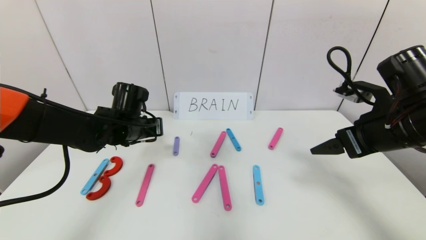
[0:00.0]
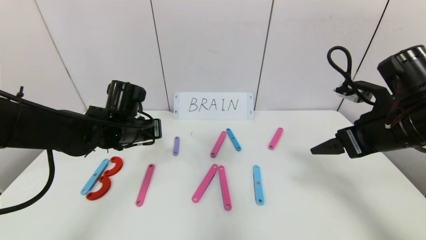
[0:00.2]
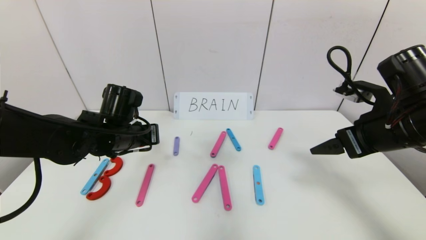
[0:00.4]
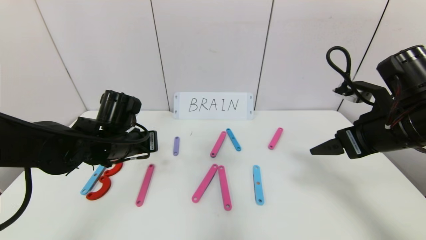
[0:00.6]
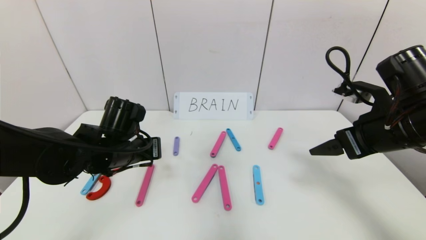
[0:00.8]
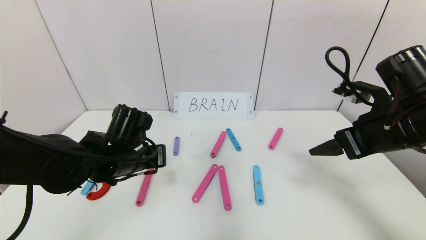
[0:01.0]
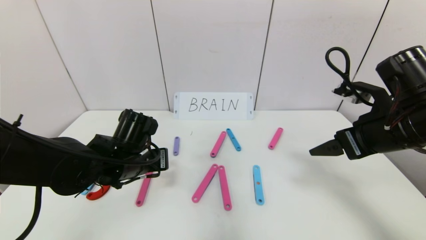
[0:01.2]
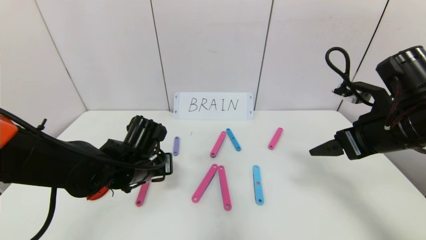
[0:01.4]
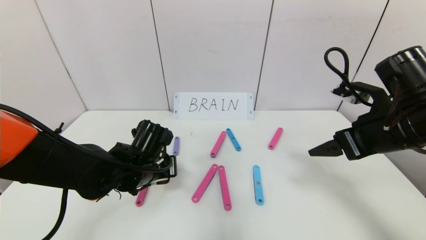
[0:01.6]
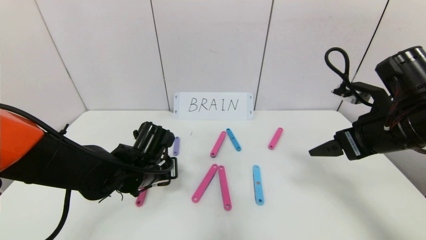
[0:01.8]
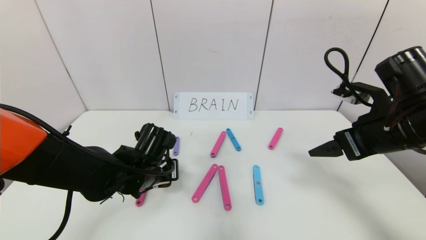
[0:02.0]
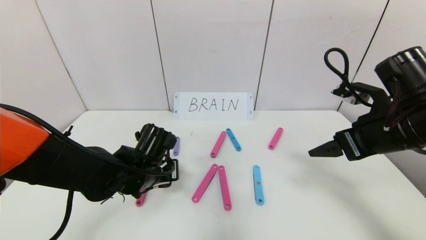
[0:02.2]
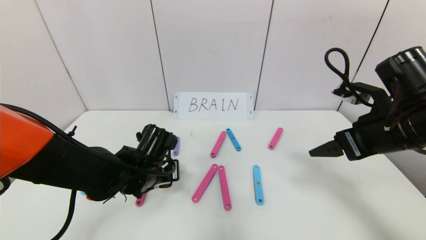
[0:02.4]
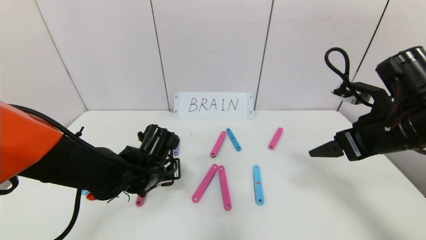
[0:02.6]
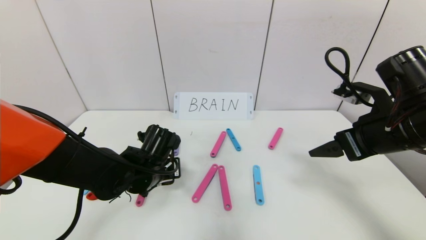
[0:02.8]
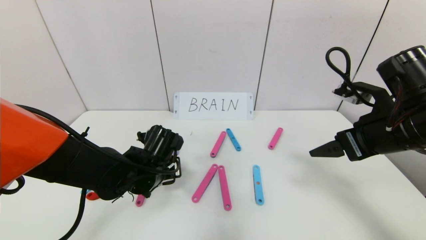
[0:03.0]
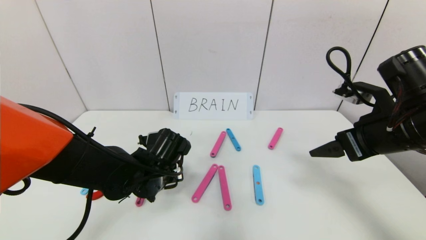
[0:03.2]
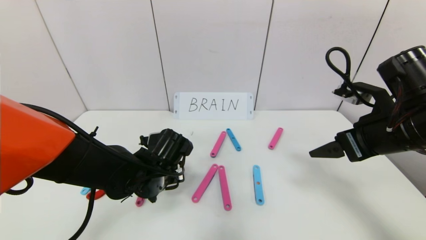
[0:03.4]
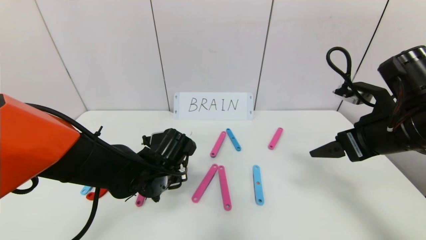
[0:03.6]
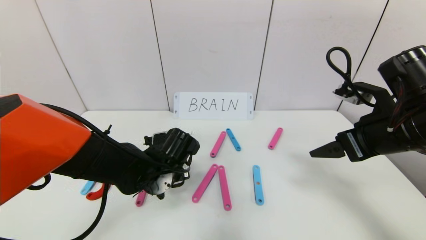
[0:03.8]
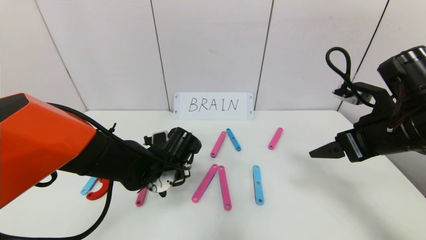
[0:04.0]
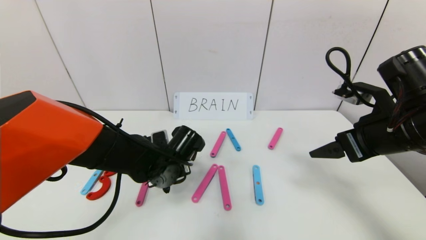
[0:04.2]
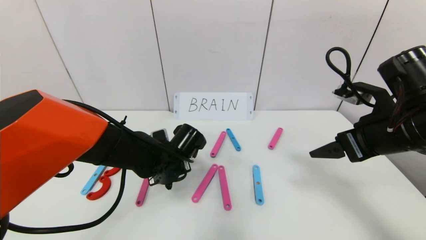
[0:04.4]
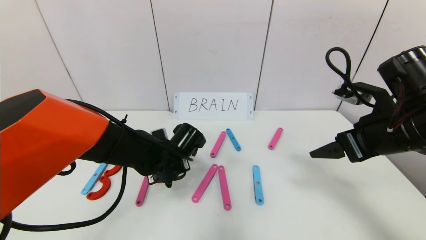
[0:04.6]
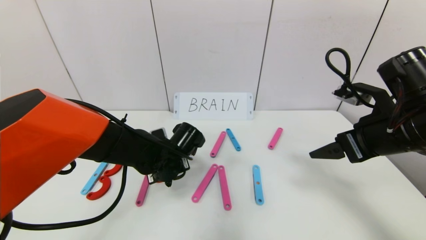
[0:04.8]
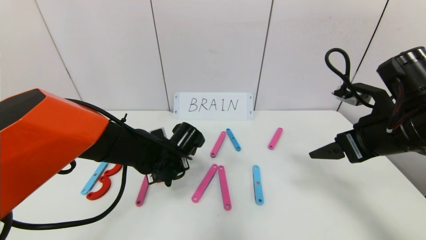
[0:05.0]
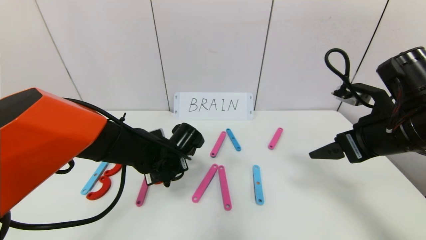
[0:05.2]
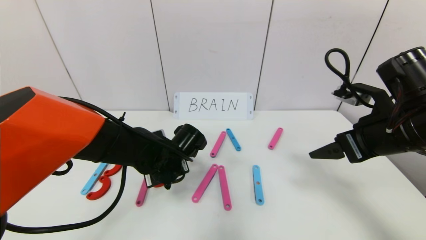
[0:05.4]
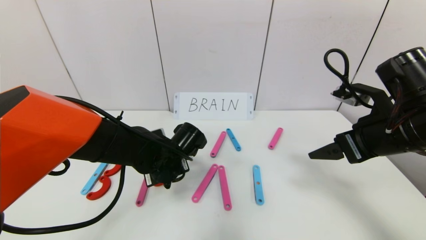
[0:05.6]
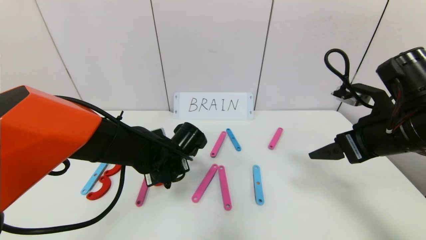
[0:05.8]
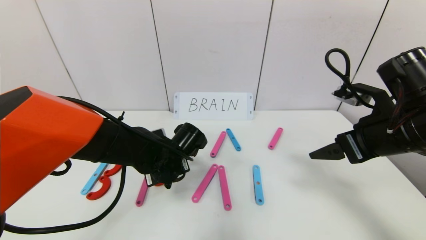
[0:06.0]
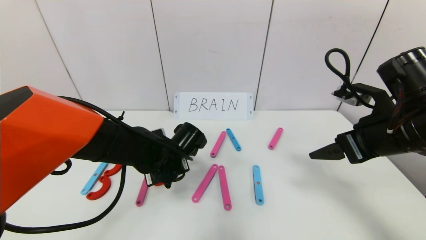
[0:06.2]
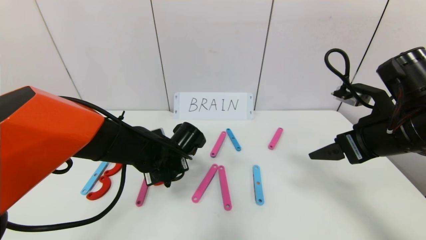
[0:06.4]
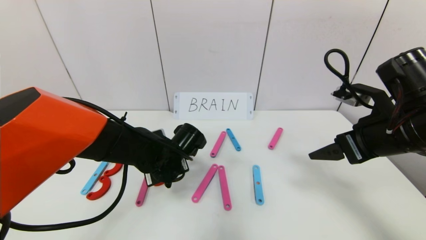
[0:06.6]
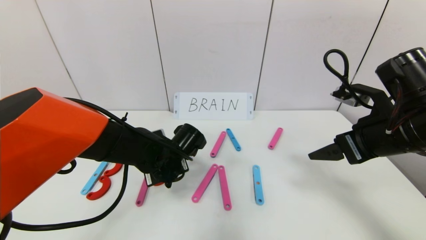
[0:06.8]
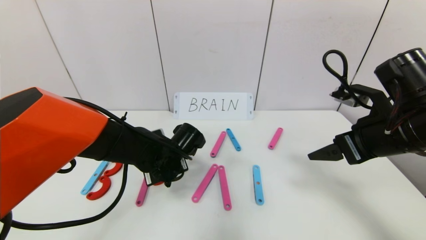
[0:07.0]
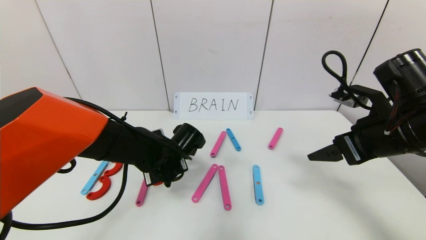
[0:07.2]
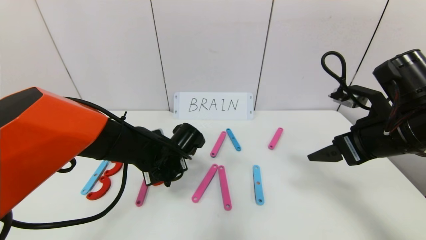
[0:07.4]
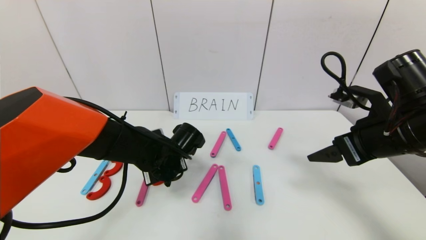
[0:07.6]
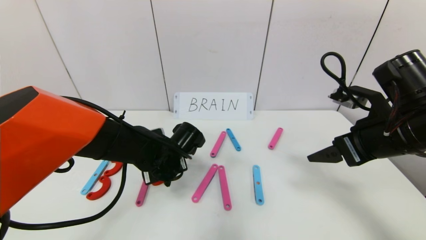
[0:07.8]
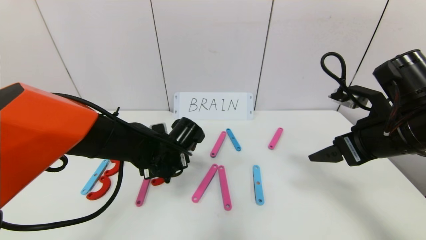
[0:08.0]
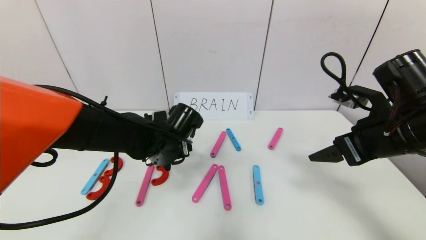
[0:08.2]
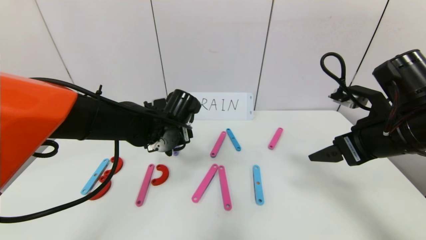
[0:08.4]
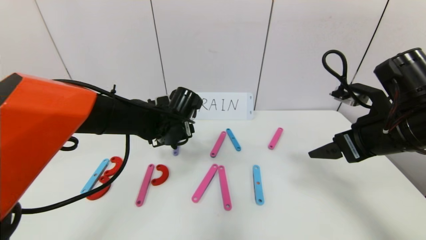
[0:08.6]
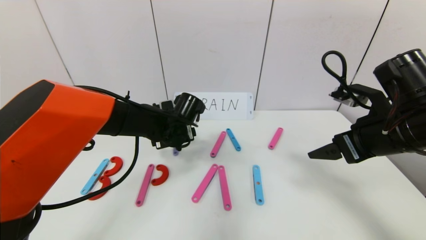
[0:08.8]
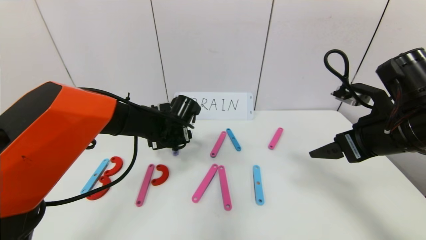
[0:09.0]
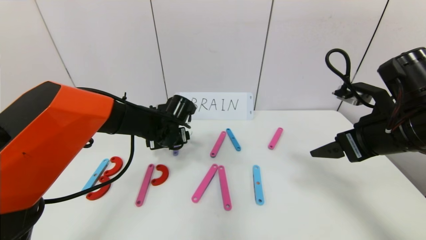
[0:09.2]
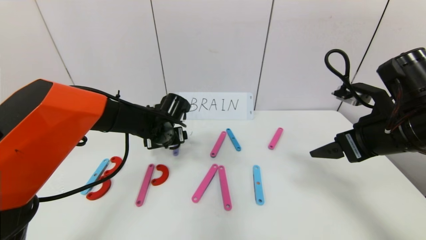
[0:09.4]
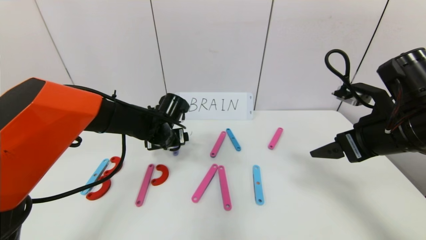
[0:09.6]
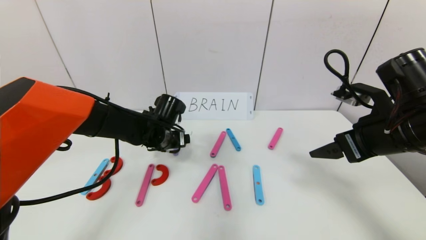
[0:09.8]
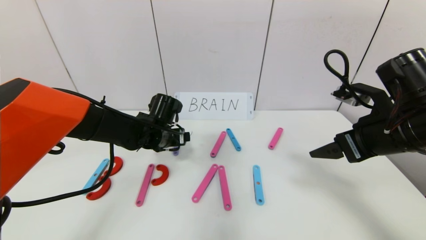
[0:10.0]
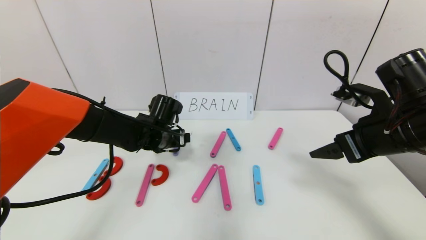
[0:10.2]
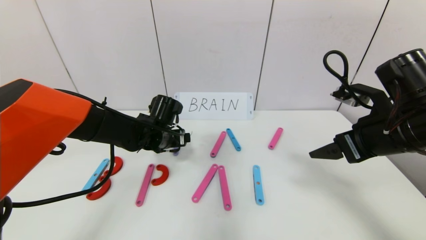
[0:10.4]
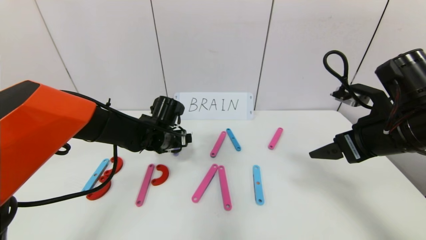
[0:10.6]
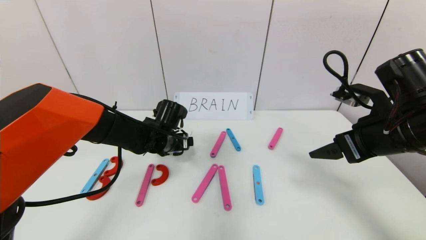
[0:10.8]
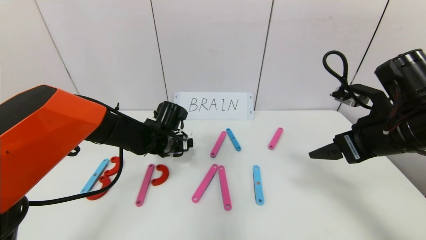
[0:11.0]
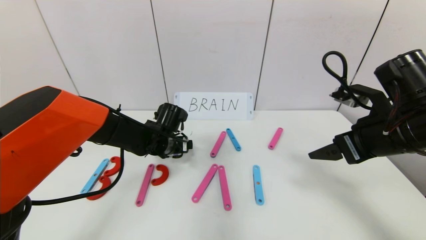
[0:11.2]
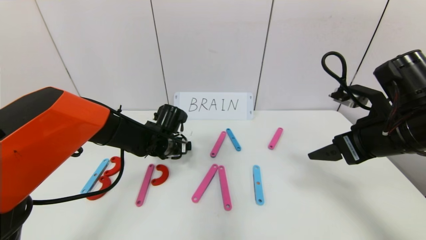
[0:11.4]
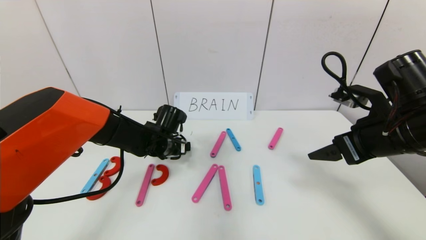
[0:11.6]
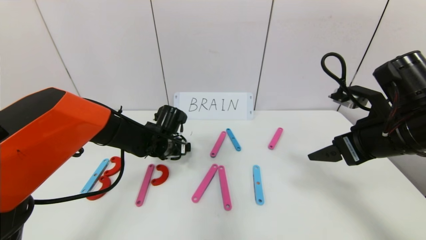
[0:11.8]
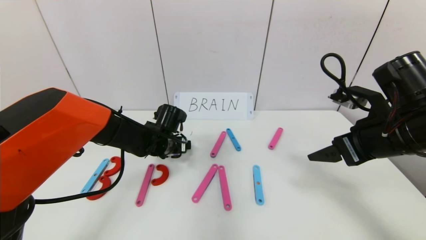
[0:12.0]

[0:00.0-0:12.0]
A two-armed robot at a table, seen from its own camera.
Task of the whole recording: rearrange the word baai as brain.
0:00.0 to 0:01.6: The left gripper travels backward by some 5 cm.
0:01.6 to 0:03.0: There are only small adjustments of the grippers.
0:03.0 to 0:04.4: The grippers make only small movements.
0:04.4 to 0:06.0: Neither gripper changes place.
0:06.0 to 0:07.6: The left gripper opens.
0:07.6 to 0:09.0: The left gripper heads forward, covering roughly 10 cm, and opens.
0:09.0 to 0:12.0: The grippers move only a little.

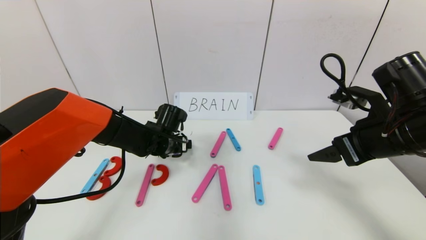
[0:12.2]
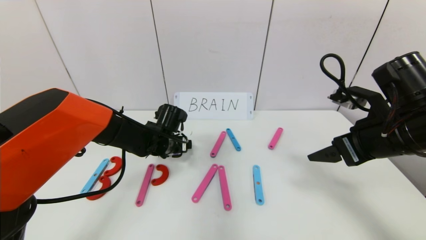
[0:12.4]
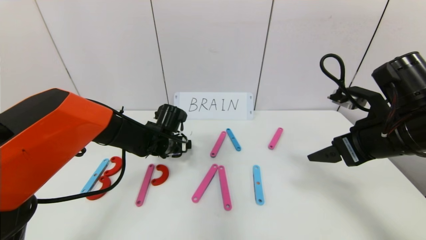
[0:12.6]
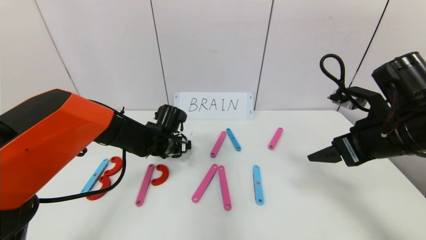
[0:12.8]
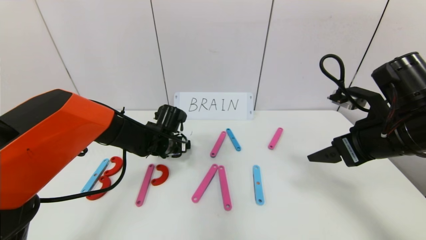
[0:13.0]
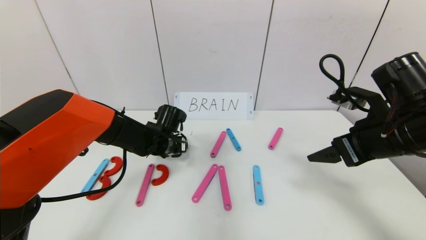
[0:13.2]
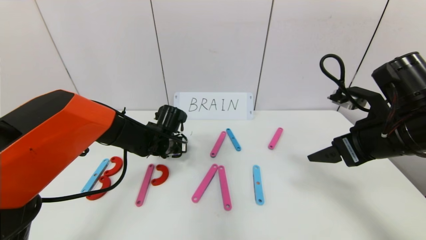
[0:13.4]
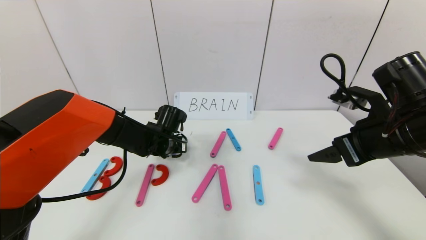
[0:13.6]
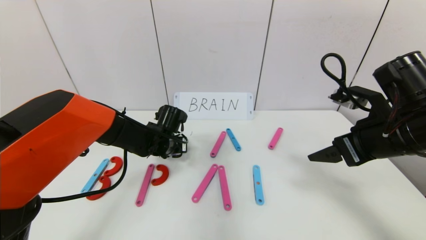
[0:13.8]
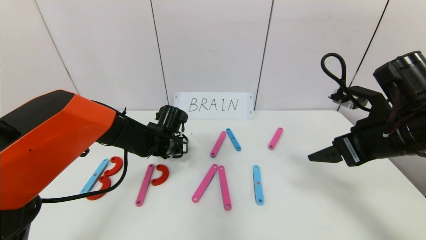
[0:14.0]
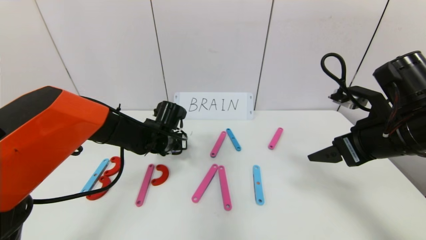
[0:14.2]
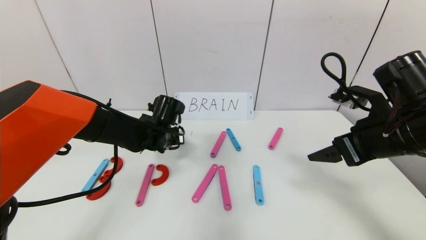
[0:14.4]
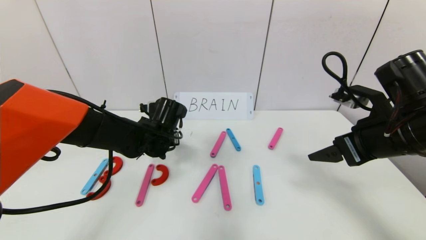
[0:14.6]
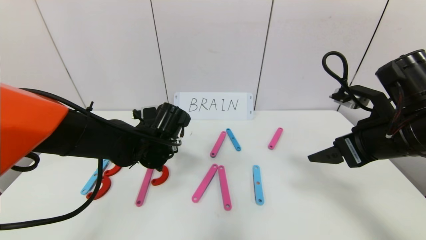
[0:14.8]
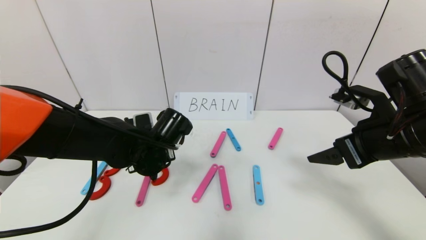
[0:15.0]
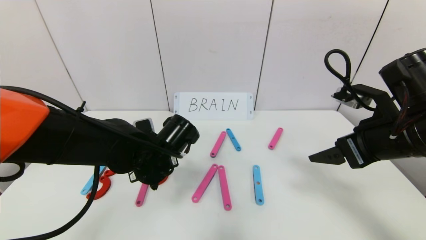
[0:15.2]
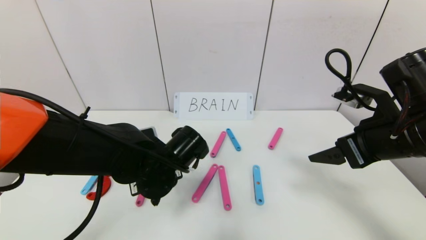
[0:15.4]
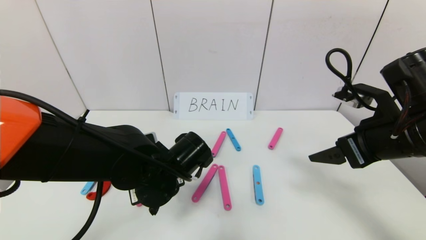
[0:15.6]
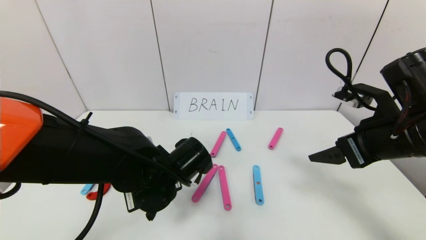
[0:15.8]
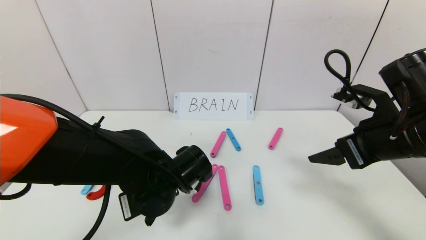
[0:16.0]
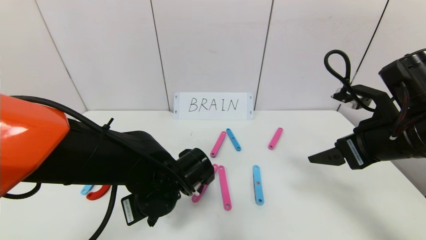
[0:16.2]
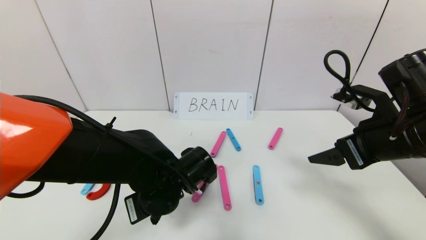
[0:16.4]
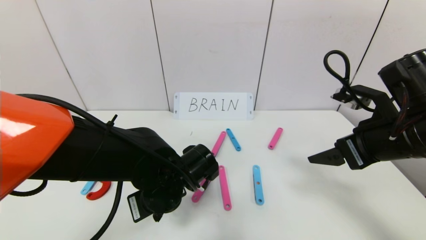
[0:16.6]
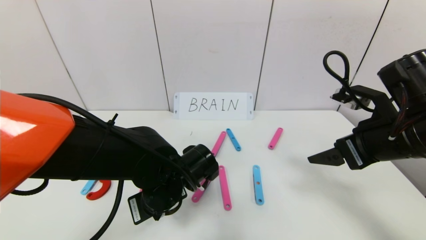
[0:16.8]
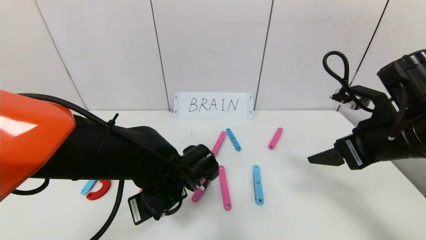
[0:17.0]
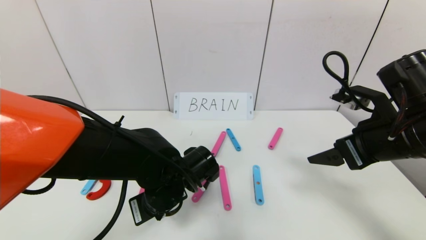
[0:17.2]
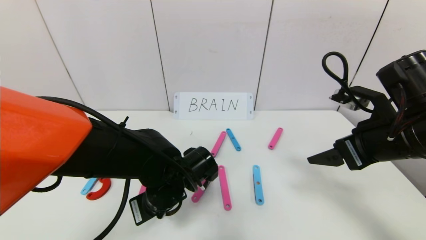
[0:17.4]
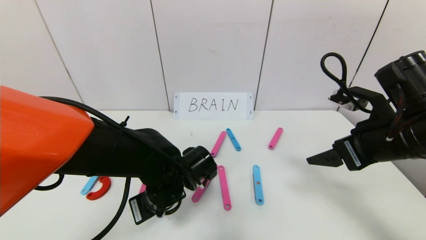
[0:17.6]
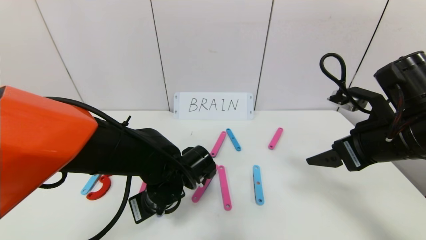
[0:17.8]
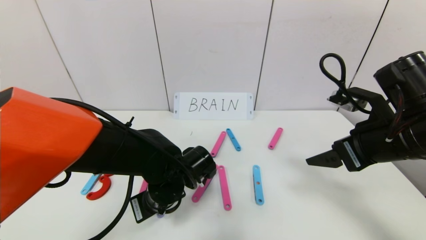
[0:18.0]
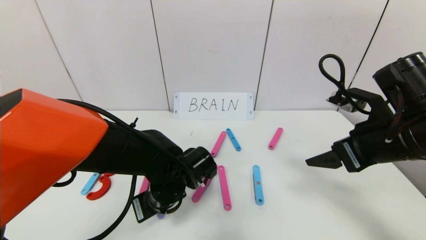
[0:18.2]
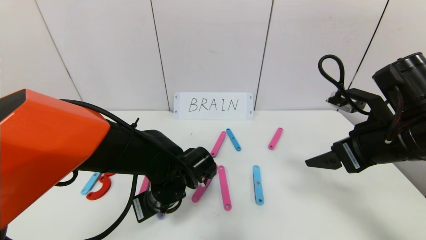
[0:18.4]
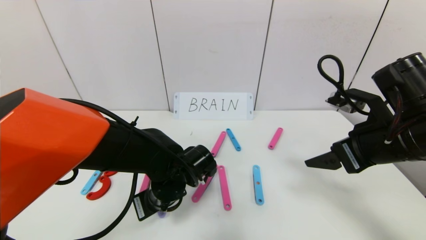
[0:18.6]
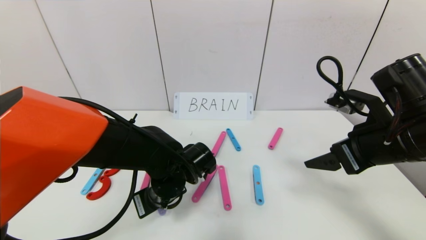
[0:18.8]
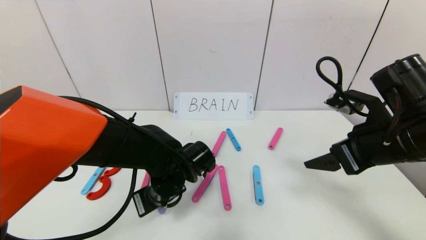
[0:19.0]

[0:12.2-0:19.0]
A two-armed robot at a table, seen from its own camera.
Task of the whole recording: rearrange the word baai as brain.
0:12.2 to 0:13.6: The left gripper closes up.
0:13.6 to 0:15.0: The left gripper goes approximately 10 cm backward.
0:15.0 to 0:16.2: The left gripper shifts about 5 cm backward.
0:16.2 to 0:19.0: There are only small adjustments of the grippers.
